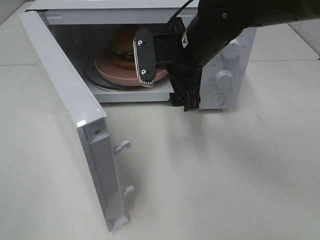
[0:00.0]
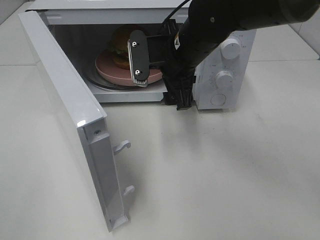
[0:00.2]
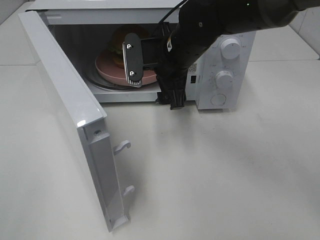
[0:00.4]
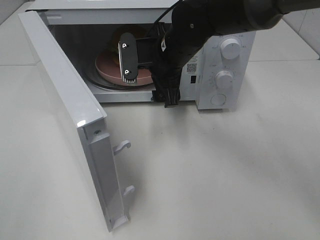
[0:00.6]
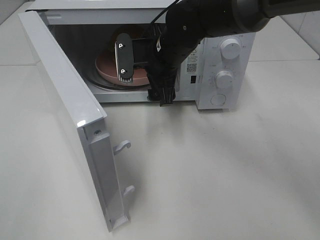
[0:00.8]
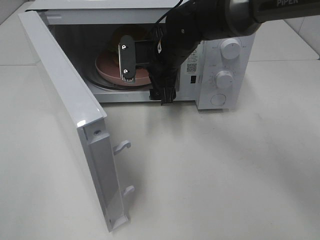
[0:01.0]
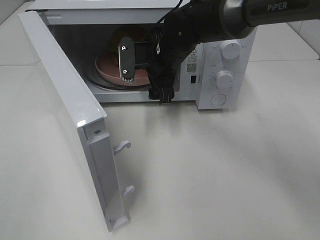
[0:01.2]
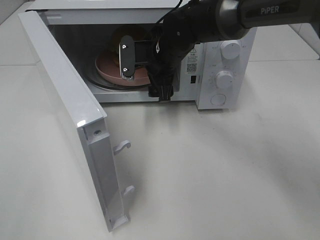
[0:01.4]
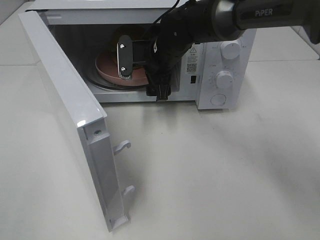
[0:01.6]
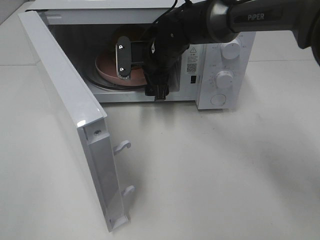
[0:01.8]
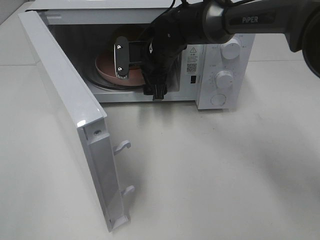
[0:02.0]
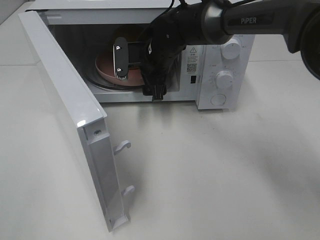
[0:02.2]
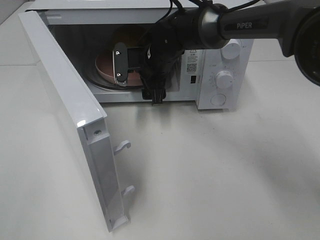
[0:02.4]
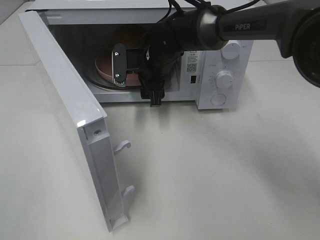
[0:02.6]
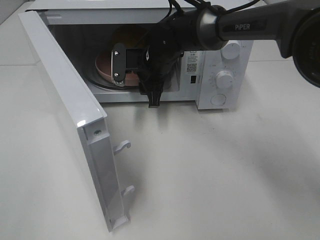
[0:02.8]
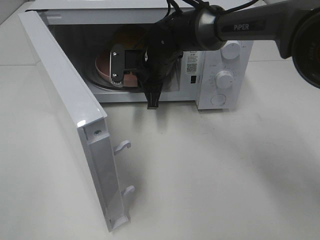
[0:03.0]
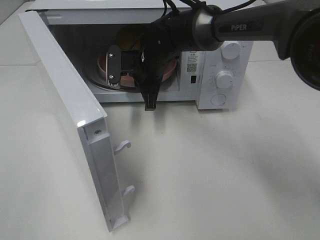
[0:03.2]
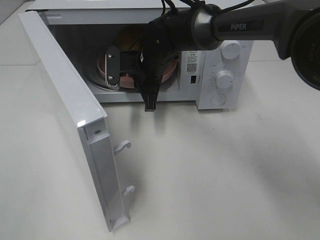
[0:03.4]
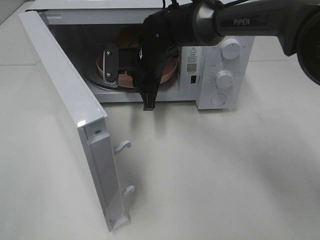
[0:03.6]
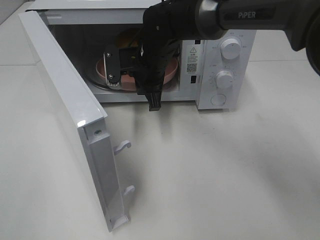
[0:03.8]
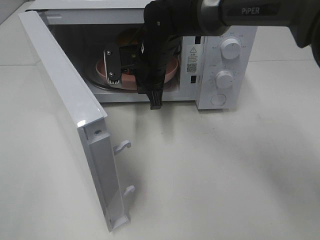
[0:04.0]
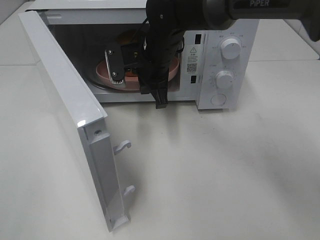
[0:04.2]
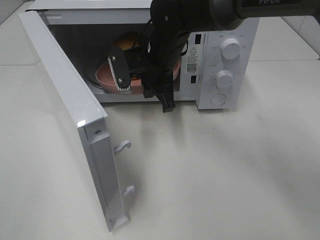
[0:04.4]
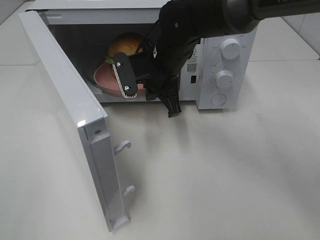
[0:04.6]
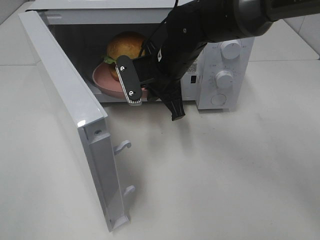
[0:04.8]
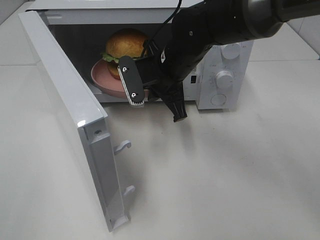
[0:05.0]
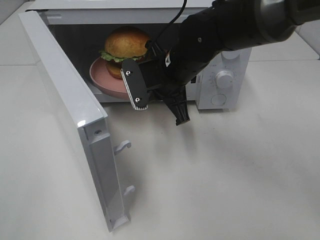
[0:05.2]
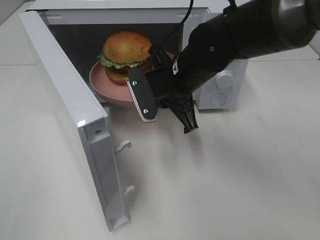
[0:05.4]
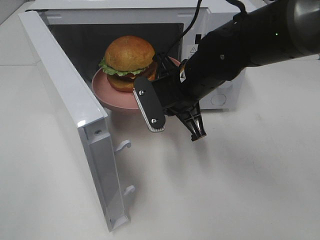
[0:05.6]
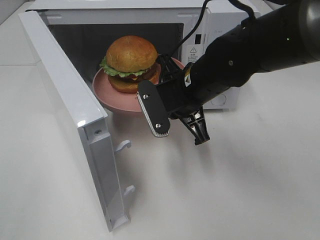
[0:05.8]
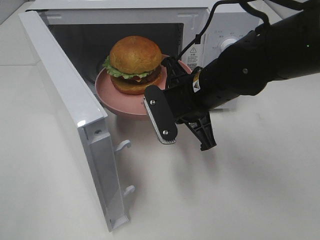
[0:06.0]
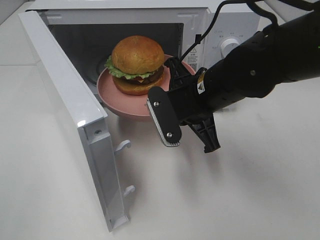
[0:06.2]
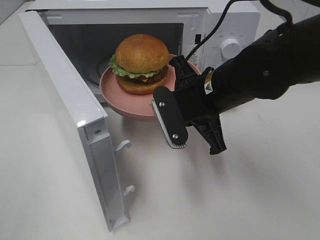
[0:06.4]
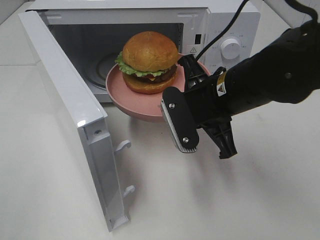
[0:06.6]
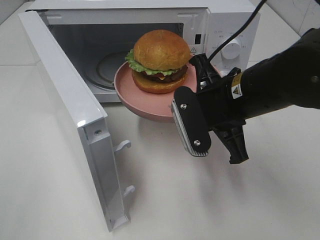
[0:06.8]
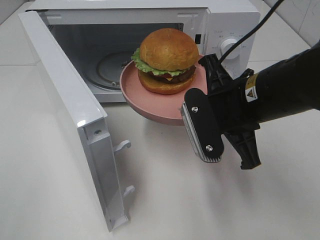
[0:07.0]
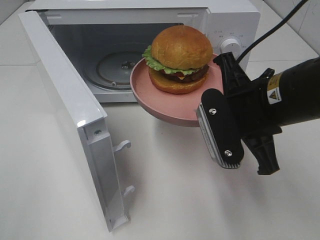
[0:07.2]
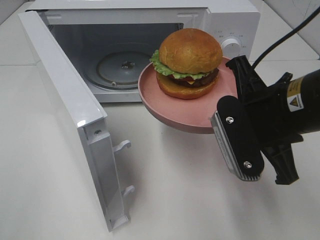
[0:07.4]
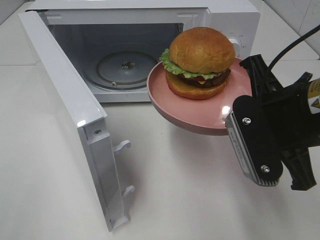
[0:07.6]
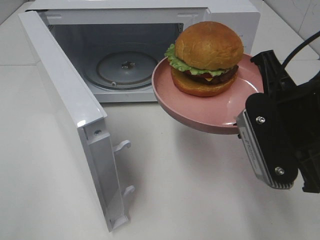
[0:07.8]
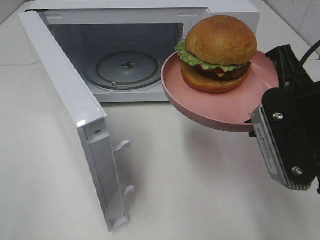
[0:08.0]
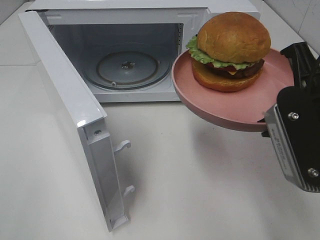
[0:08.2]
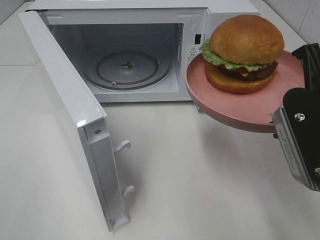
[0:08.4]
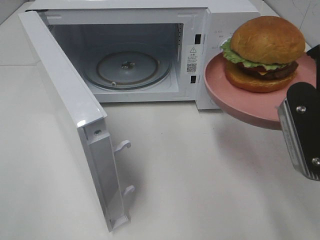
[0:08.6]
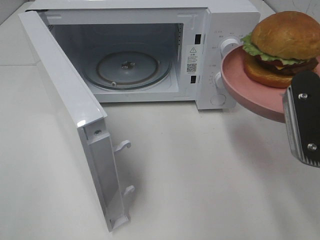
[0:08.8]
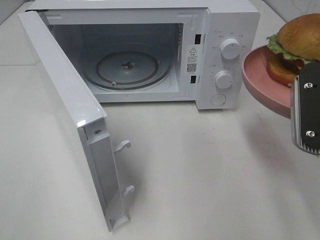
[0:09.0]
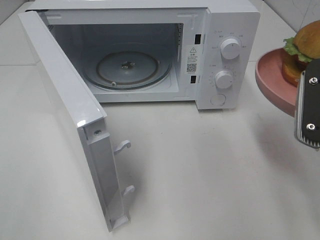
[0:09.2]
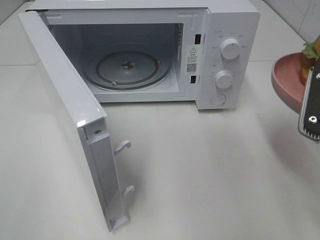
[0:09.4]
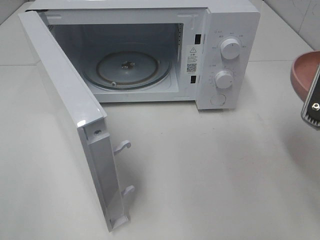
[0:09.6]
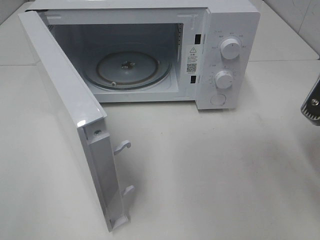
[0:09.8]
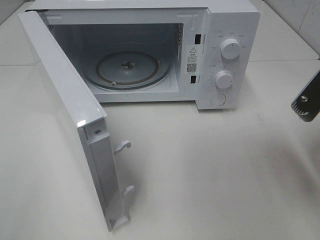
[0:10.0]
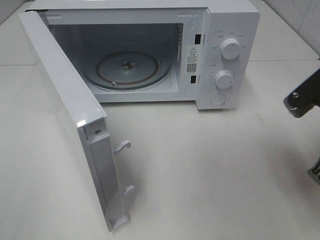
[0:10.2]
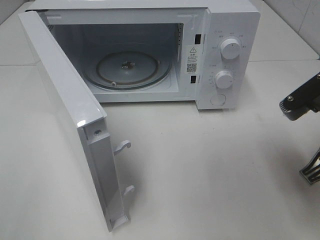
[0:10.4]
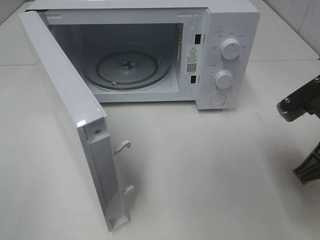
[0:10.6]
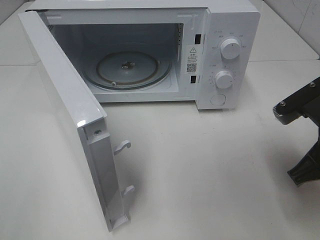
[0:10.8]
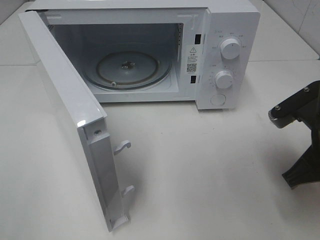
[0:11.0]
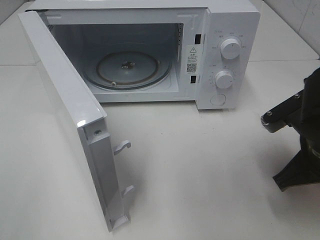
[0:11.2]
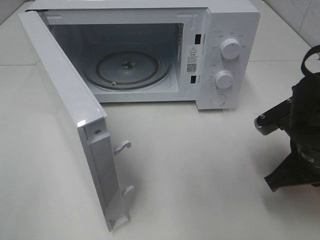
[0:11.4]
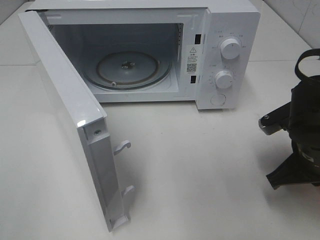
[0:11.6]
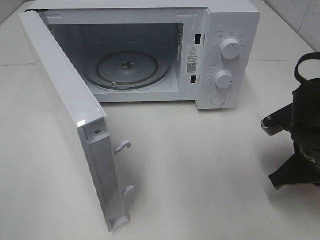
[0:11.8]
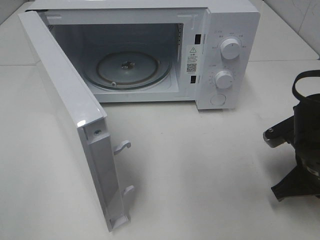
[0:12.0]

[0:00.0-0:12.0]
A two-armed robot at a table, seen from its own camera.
Task of the whole recording: Heat the burger.
Step, 0:00.0 to 0:03.0: Right hand: grab the plate with the hamburger.
0:00.0 to 0:01.6: The right gripper moves forward and downward, roughly 10 cm.
0:01.6 to 0:03.0: The right gripper closes.
0:03.0 to 0:04.4: The right gripper changes place by about 5 cm.
0:04.4 to 0:06.0: The right gripper is displaced backward and to the right by some 10 cm.
0:06.0 to 0:07.6: The right gripper shifts some 15 cm backward, to the right and upward.
0:07.6 to 0:09.0: The right gripper heads to the right, covering about 5 cm.
0:09.0 to 0:10.4: The right gripper goes about 5 cm downward.
0:10.4 to 0:12.0: The right gripper travels downward by approximately 10 cm.

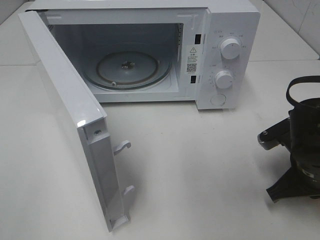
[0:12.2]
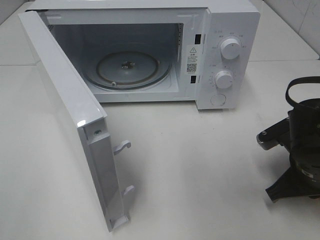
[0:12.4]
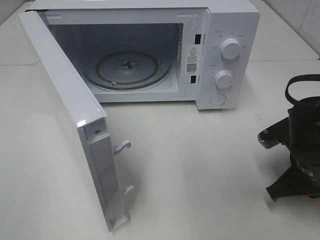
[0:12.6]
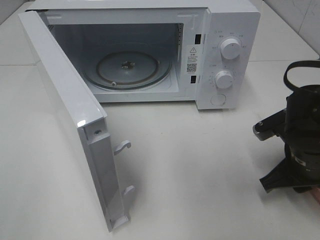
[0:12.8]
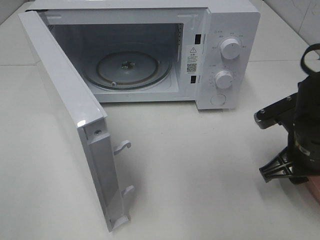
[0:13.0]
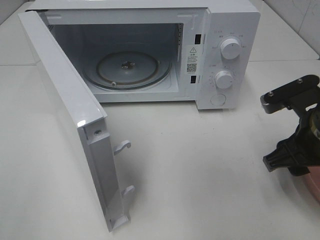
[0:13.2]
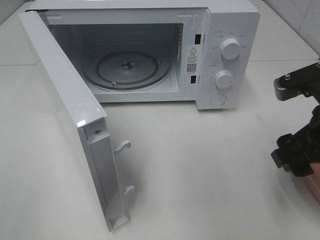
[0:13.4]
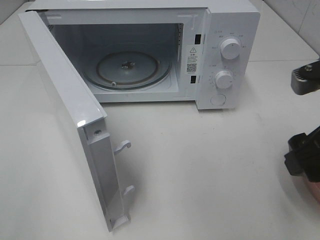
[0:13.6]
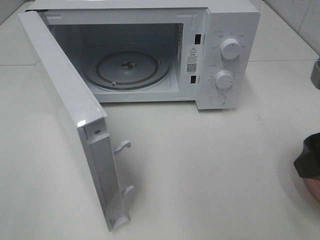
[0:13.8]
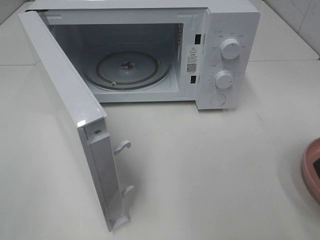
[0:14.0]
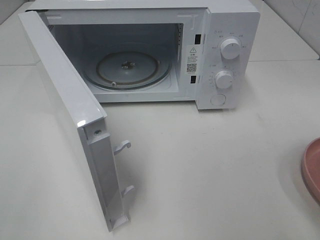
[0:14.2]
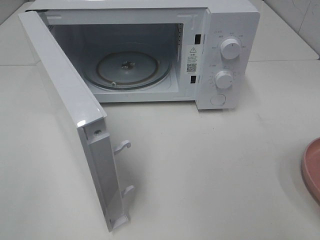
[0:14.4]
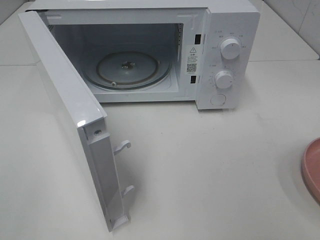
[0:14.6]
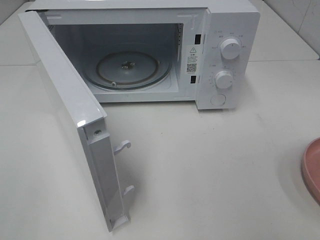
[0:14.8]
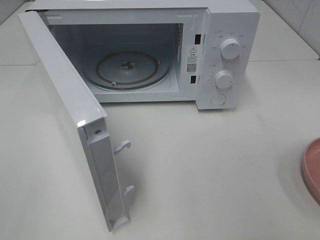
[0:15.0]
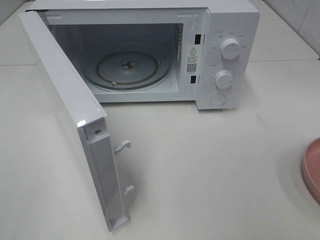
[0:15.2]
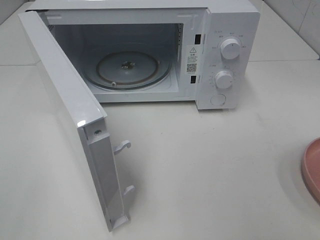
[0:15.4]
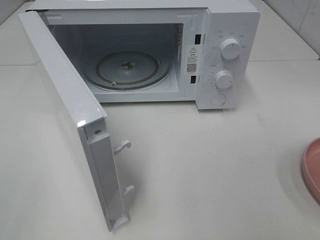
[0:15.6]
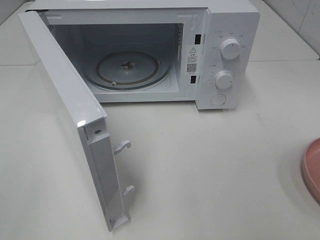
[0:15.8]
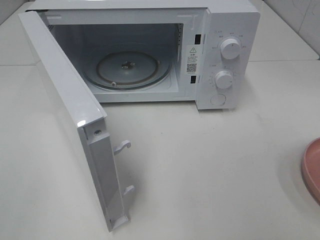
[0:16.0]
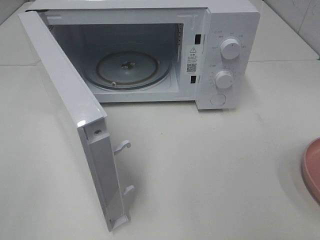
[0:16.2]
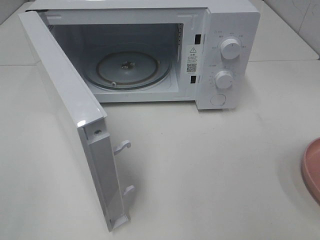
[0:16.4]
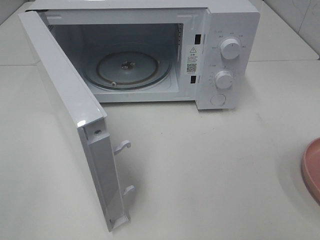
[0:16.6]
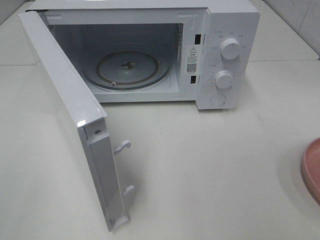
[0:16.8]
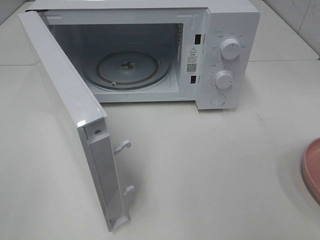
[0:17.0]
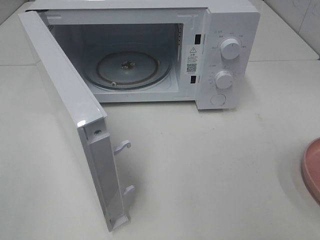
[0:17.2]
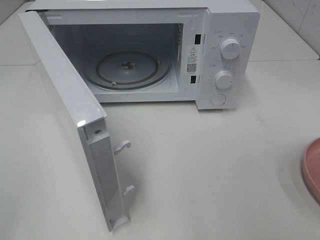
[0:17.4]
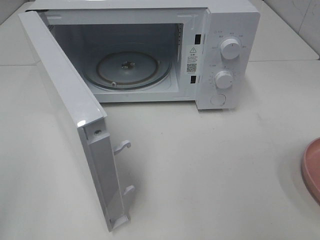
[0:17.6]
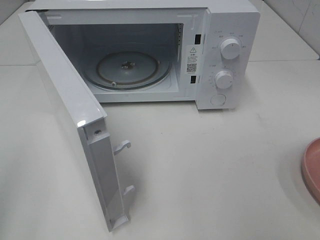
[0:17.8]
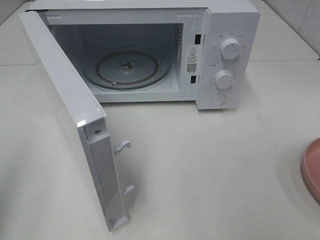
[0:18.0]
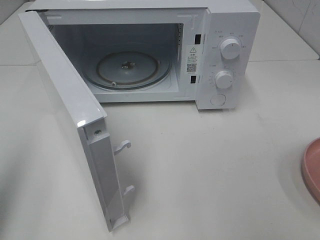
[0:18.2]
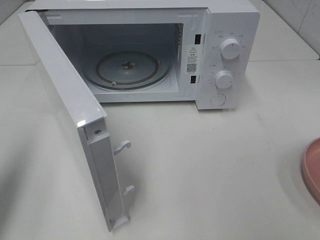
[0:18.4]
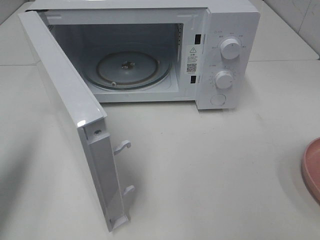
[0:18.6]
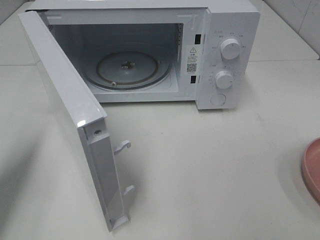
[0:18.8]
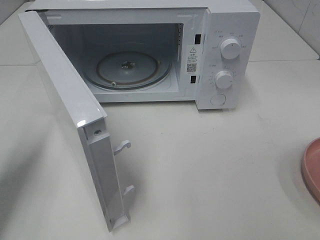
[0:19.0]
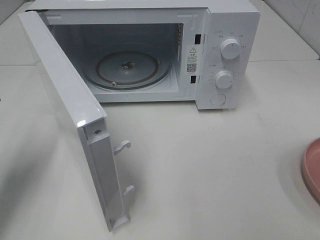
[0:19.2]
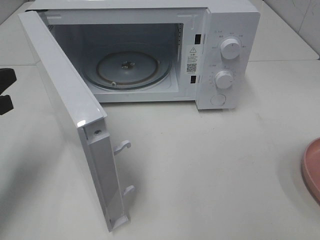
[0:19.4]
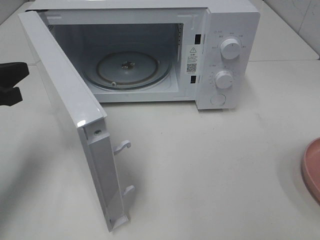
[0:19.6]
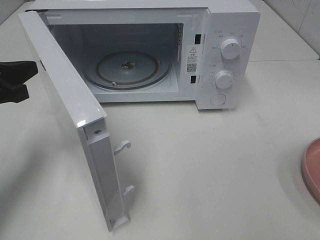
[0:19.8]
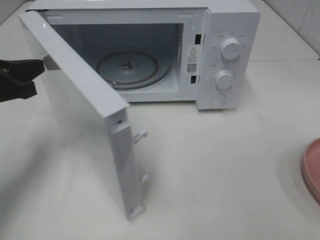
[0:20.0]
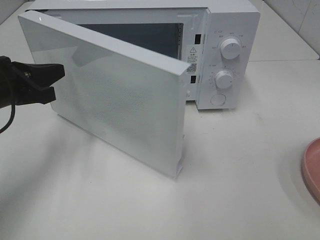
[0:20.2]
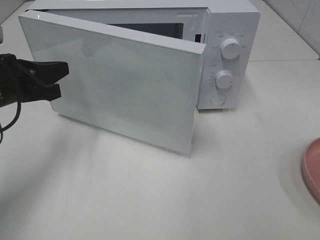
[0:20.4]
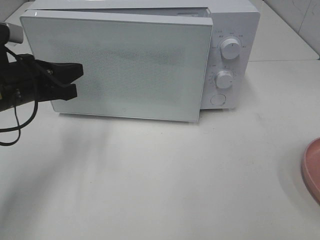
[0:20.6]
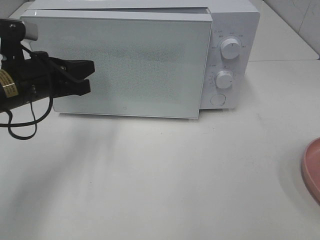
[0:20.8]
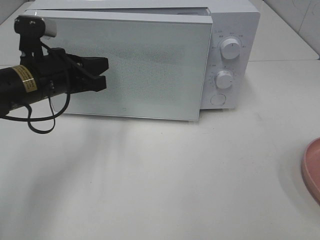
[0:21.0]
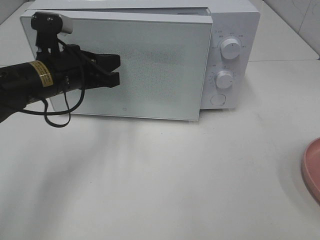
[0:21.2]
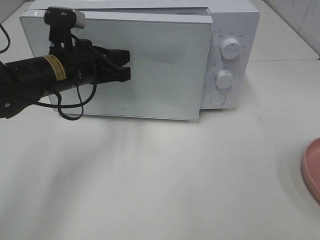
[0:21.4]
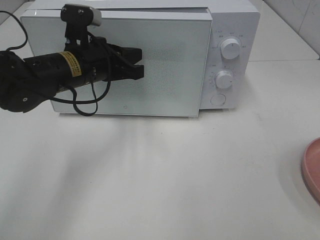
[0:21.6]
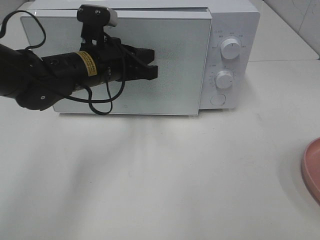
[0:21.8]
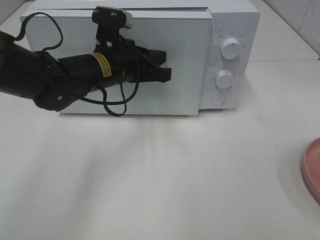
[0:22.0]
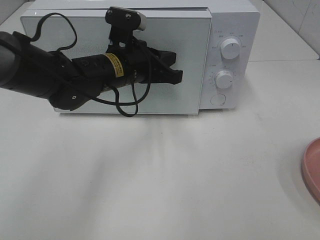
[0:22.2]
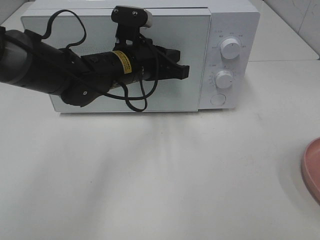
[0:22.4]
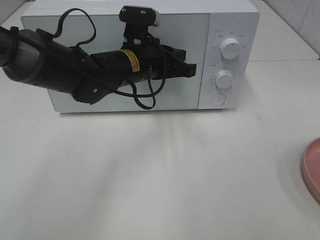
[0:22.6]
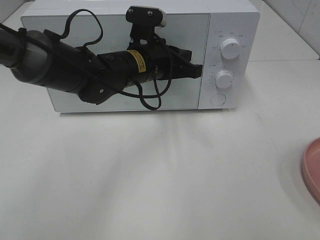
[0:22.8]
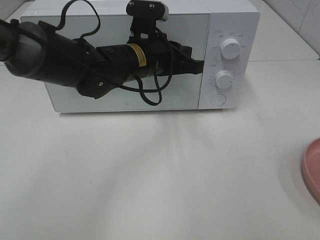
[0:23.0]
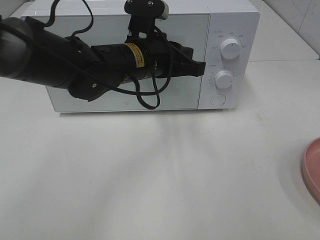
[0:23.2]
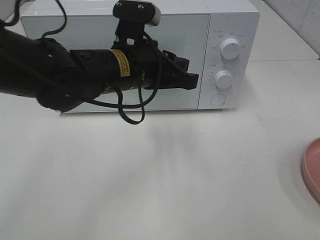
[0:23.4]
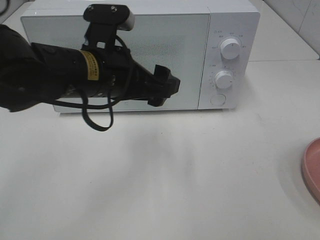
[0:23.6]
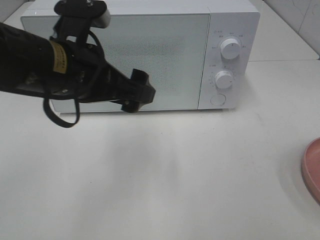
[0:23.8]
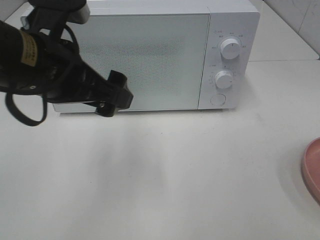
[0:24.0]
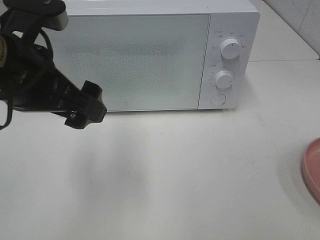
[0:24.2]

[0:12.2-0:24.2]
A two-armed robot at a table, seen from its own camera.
Task of the whole recording: Heat the burger.
Step, 0:12.8 to 0:22.8: Left hand: close the microwave door.
0:12.2 to 0:13.8: The right gripper is displaced upward and backward by some 15 cm, and opens.
0:13.8 to 0:15.2: The right gripper is displaced backward and to the right by roughly 15 cm.
0:16.6 to 0:18.2: The left gripper shifts roughly 10 cm forward, and closes its fingers.
0:18.2 to 0:19.8: The left gripper shifts about 20 cm forward and downward.
0:19.8 to 0:21.2: The left gripper moves to the right and forward, about 15 cm.
0:21.2 to 0:22.6: The left gripper goes roughly 10 cm to the right.
0:22.6 to 0:24.2: The left gripper shifts some 20 cm backward, to the left and upward, and opens.
